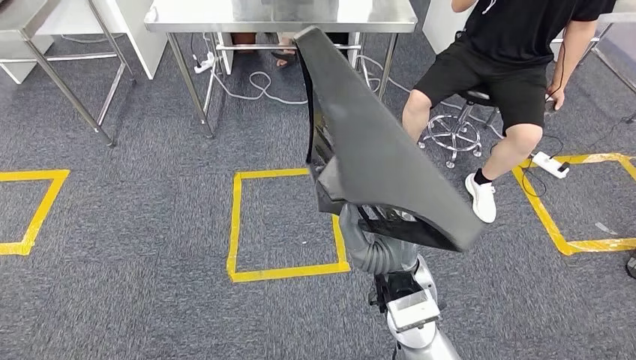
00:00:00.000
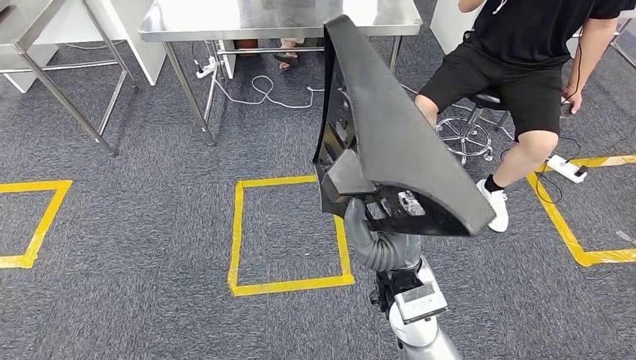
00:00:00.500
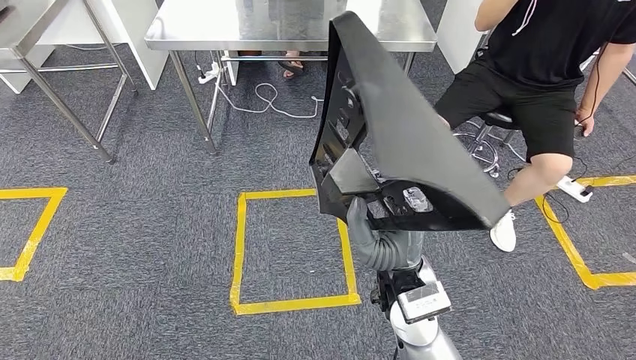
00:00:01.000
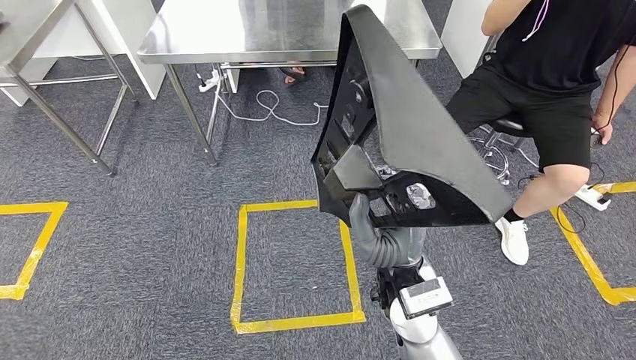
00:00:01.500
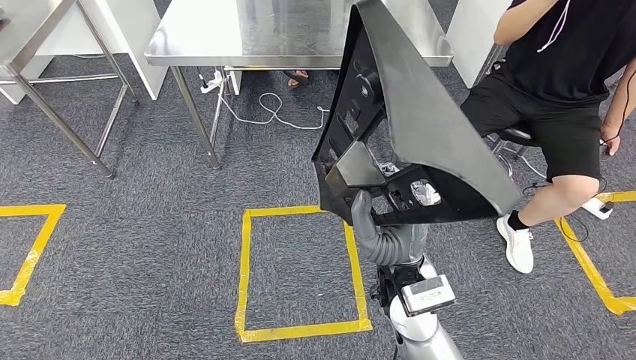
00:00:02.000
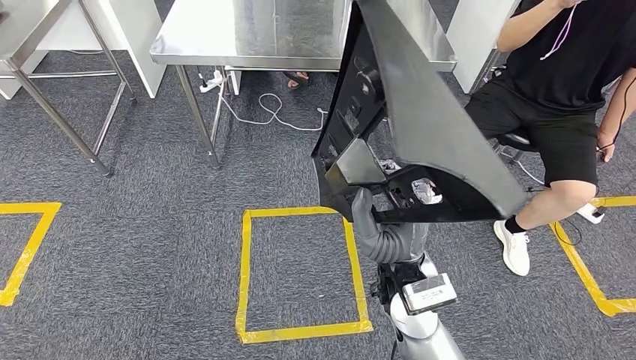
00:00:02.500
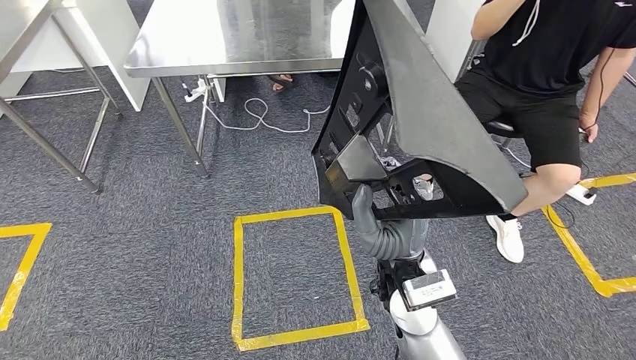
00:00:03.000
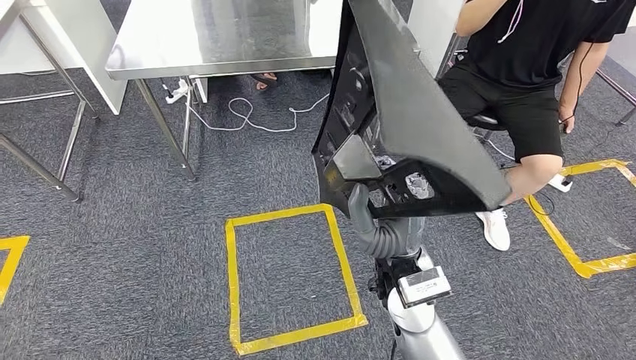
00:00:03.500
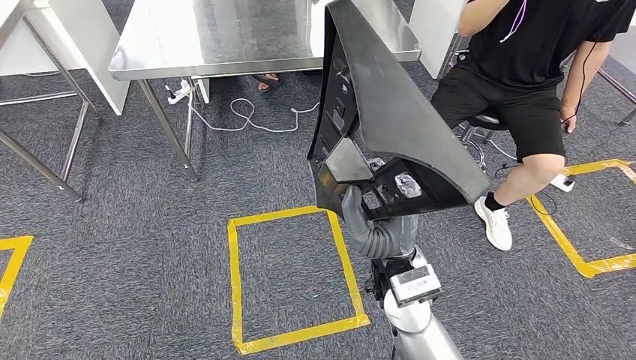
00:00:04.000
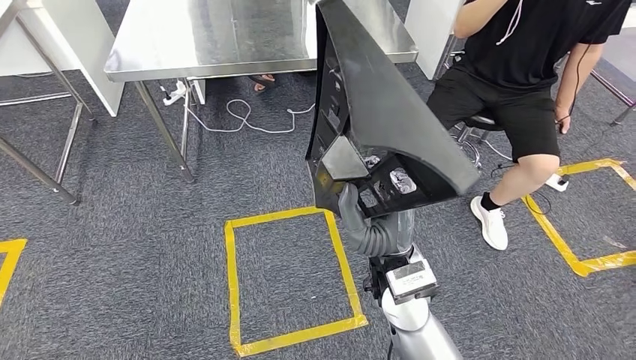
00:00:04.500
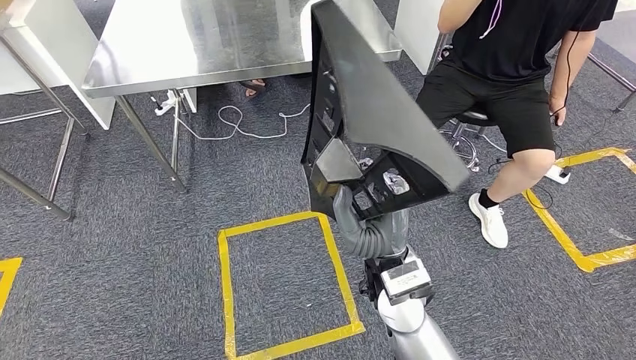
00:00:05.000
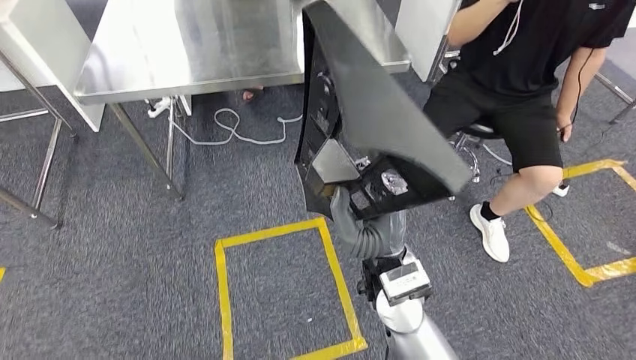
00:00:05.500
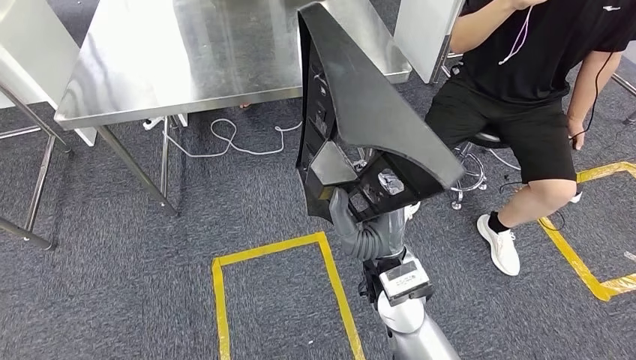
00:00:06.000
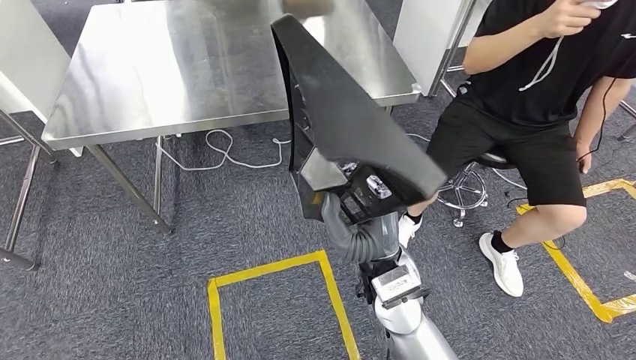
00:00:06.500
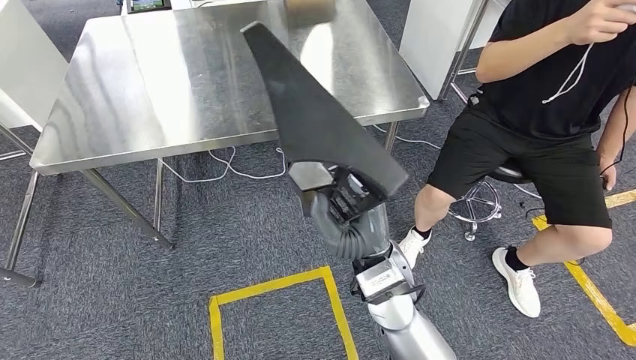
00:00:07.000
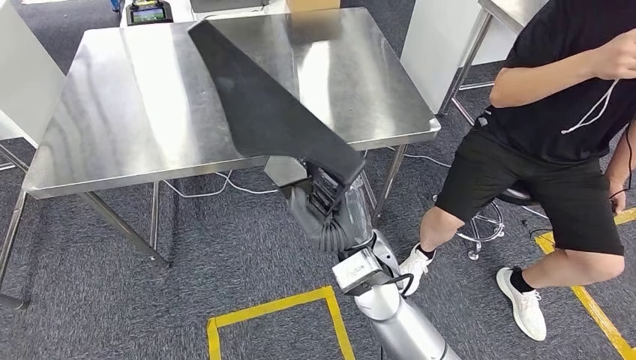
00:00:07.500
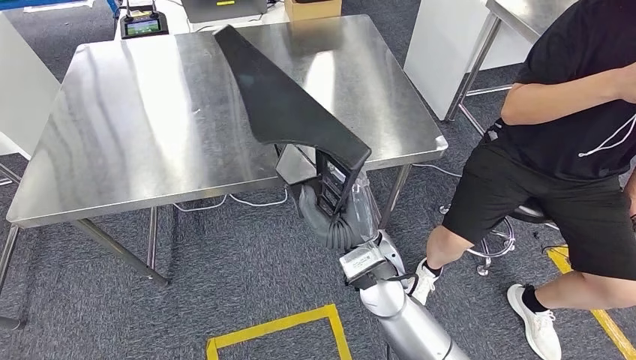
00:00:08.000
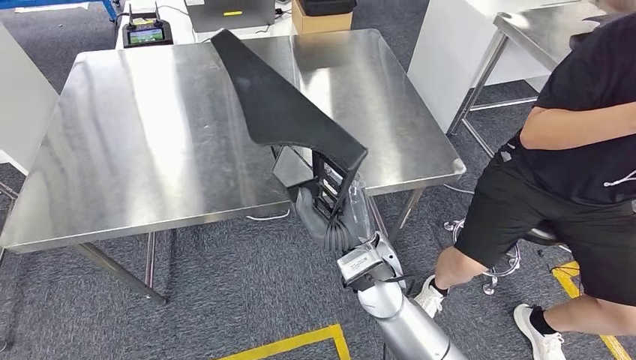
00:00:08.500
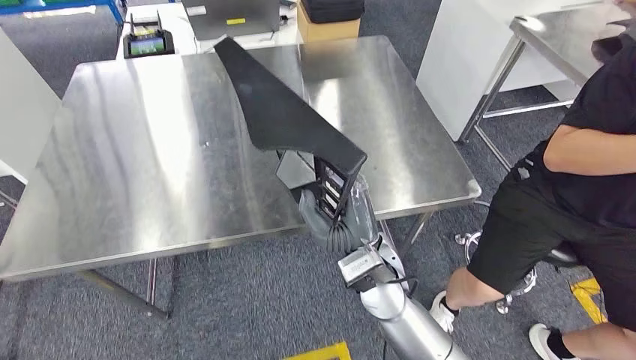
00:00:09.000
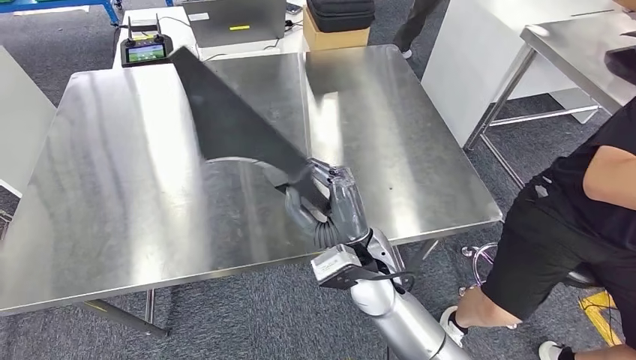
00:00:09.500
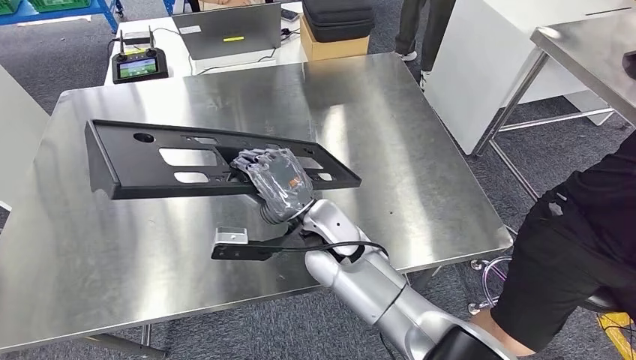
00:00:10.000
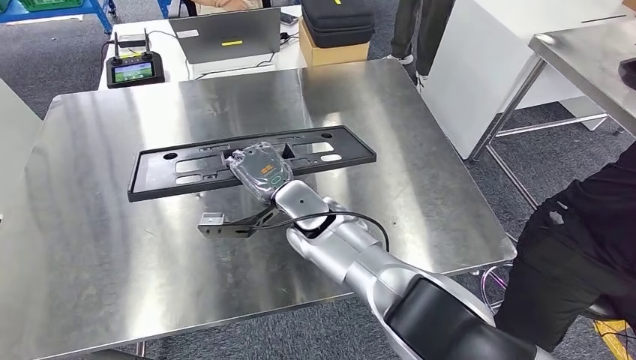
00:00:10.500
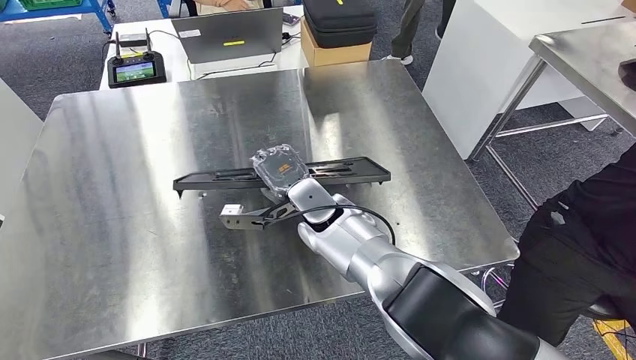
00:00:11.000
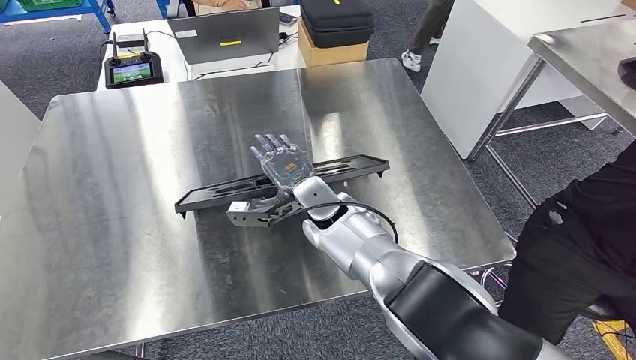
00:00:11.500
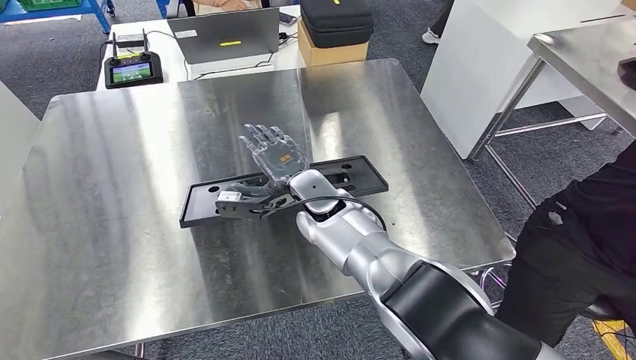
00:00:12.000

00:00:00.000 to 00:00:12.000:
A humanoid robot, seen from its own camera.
Step, 00:00:00.000 to 00:00:07.000: Move the large material to the workbench.

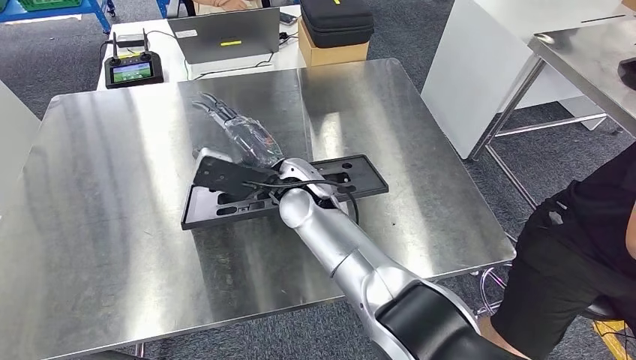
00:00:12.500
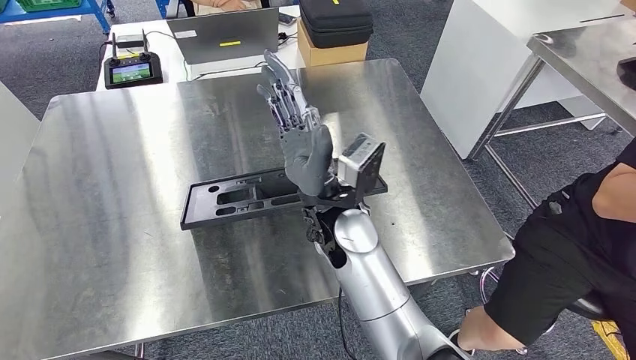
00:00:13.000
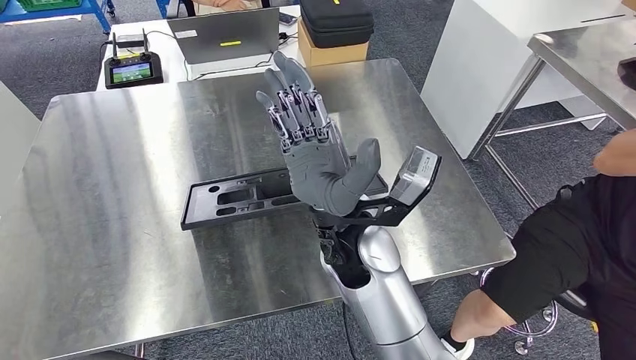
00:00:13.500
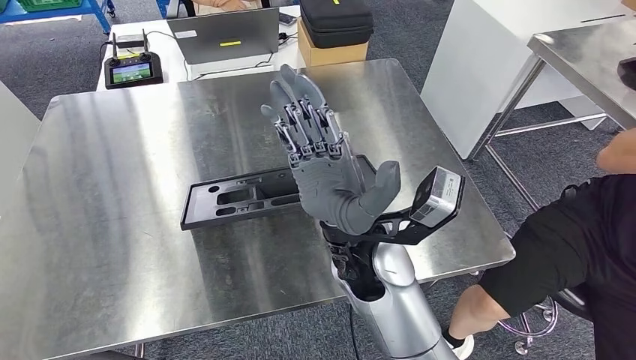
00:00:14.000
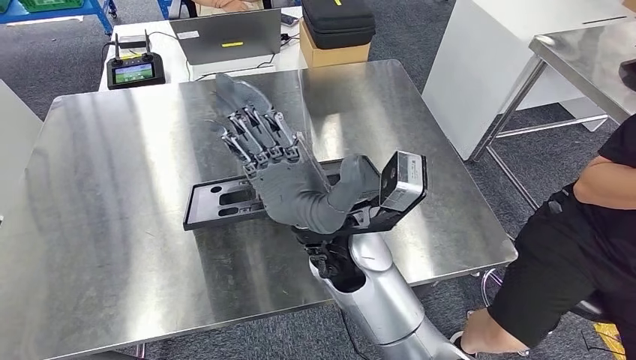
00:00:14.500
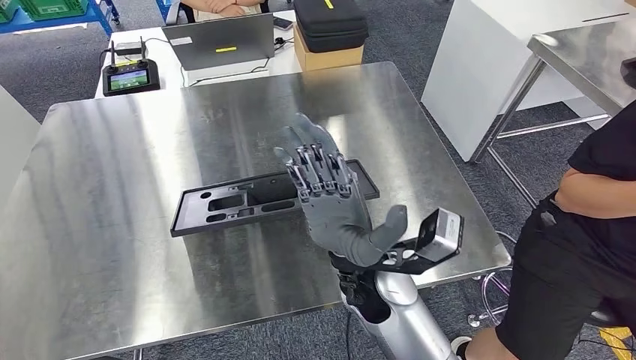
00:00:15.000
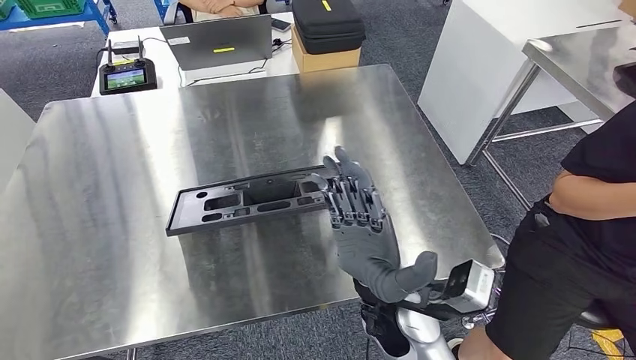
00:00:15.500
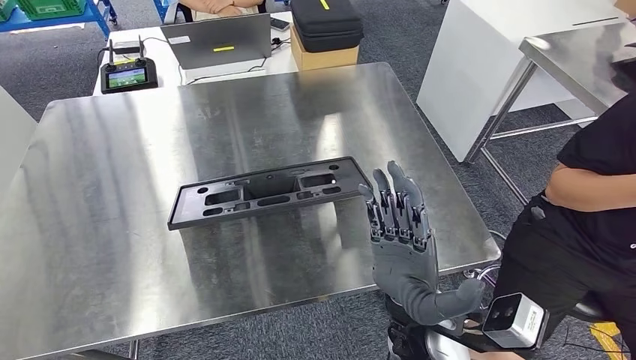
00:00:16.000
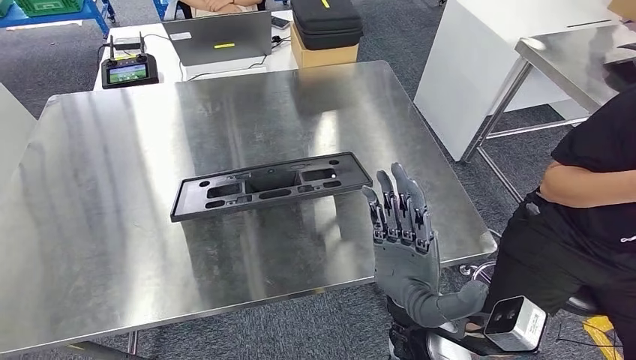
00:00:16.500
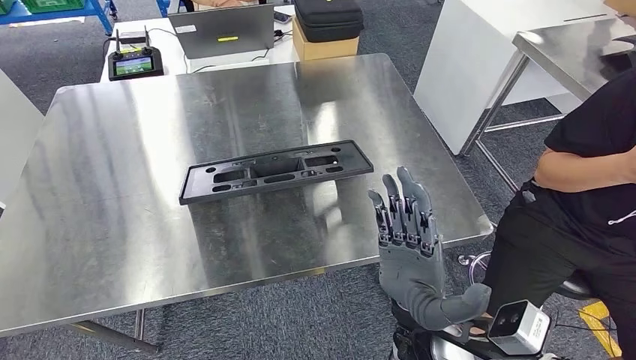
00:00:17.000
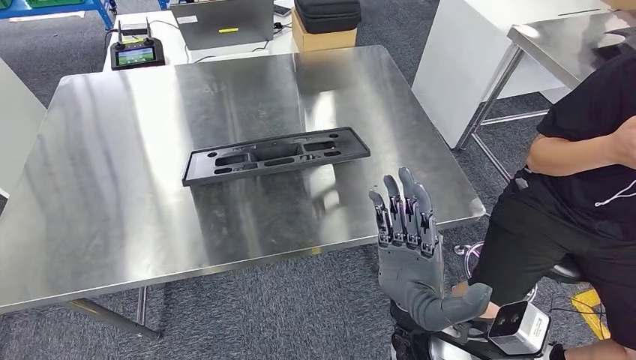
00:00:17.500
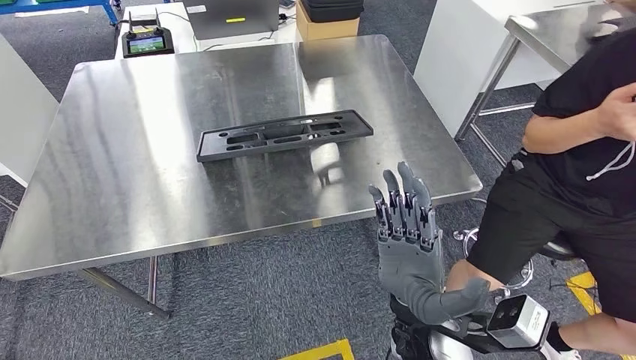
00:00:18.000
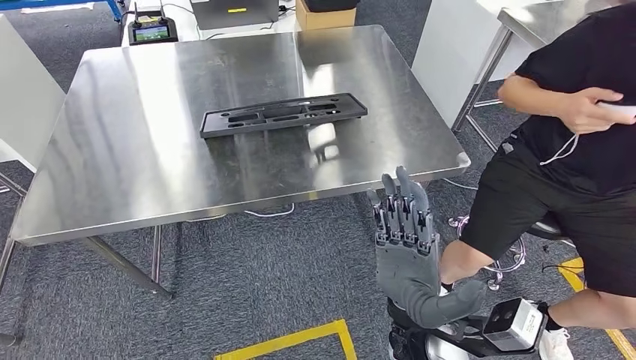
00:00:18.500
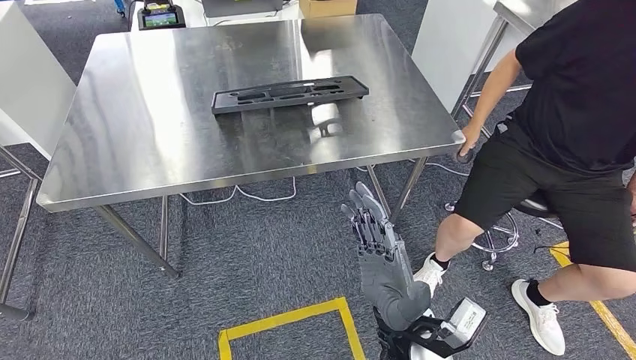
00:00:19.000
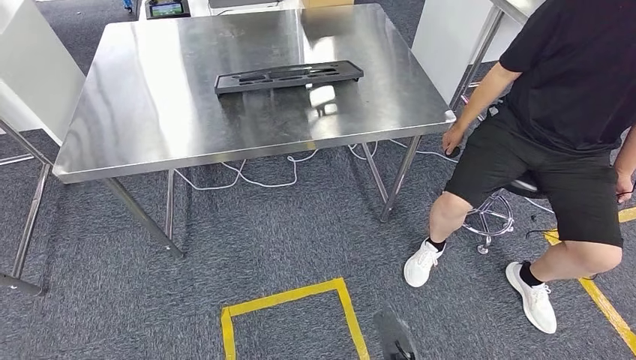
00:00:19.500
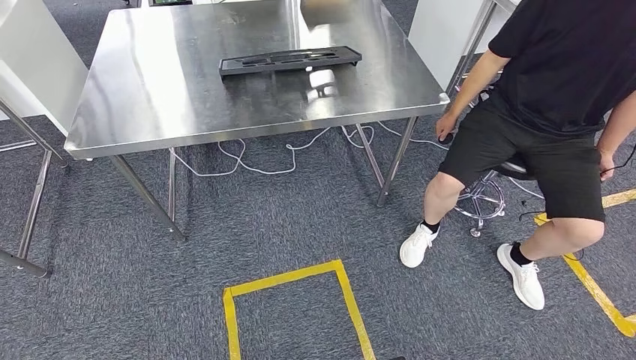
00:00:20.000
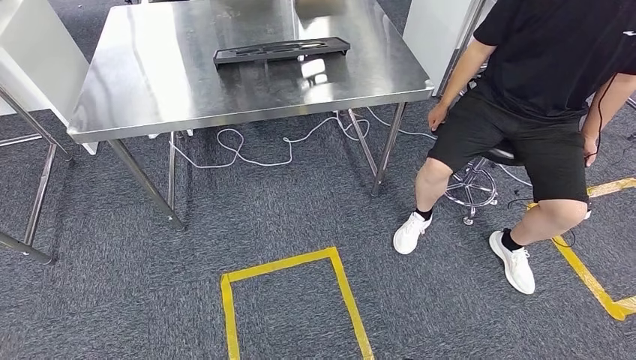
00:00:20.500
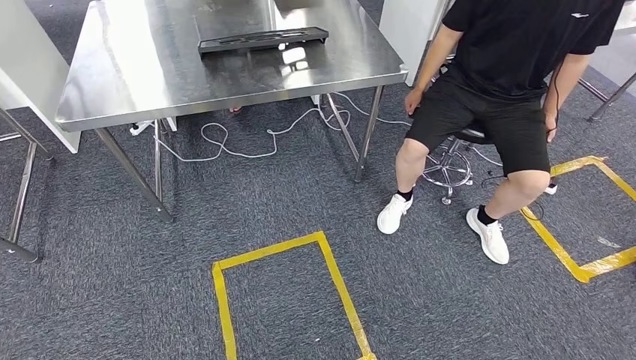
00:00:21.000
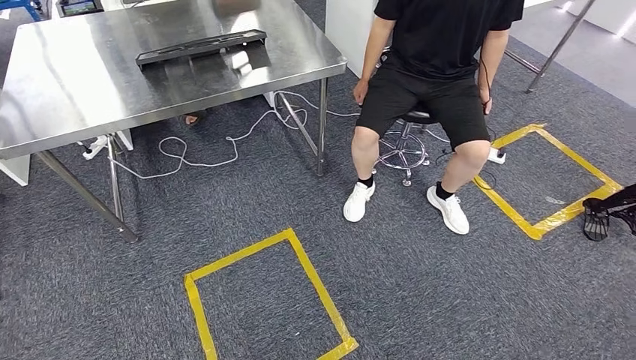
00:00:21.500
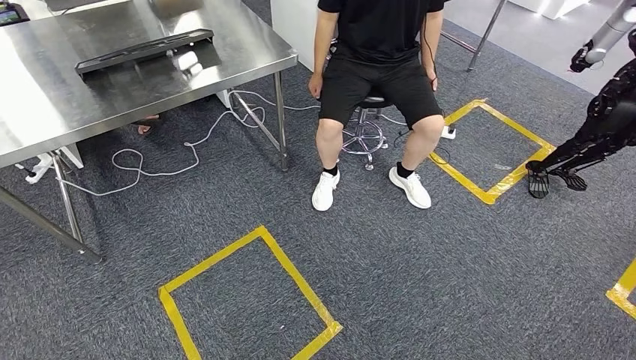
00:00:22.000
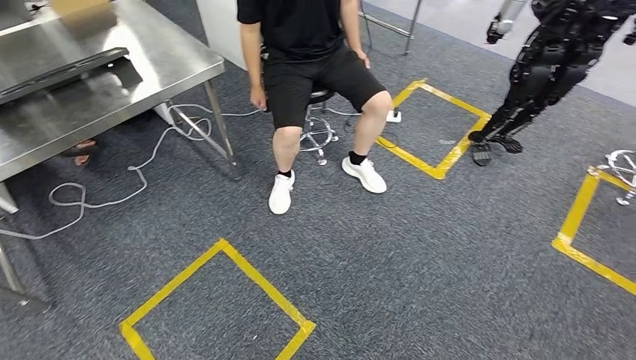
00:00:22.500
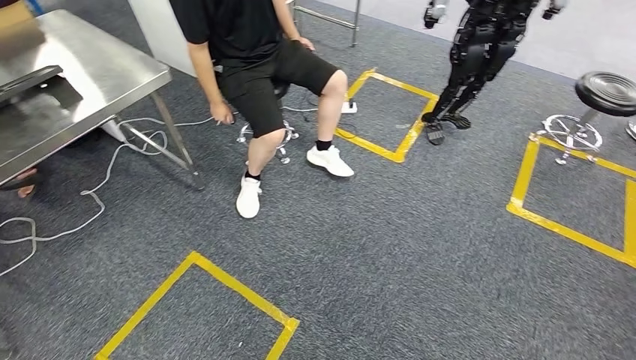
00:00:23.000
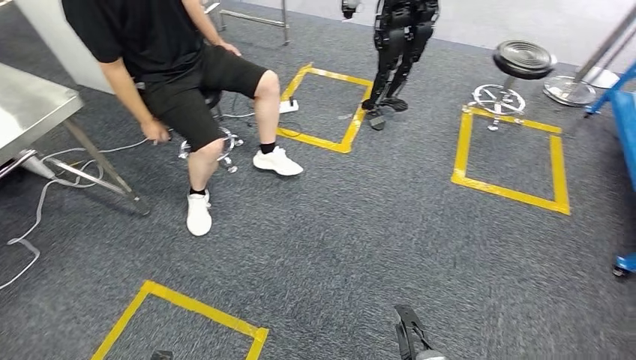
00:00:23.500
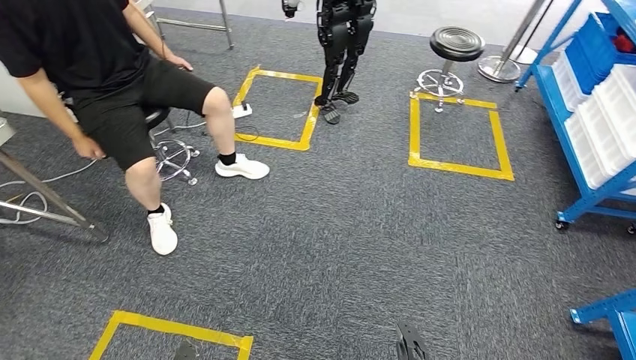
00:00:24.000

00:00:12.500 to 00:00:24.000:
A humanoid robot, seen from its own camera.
Step, 00:00:12.500 to 00:00:20.500: Insert the large material into the corresponding slot on the workbench.
